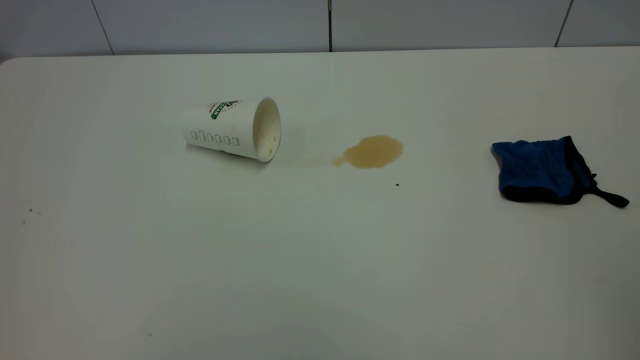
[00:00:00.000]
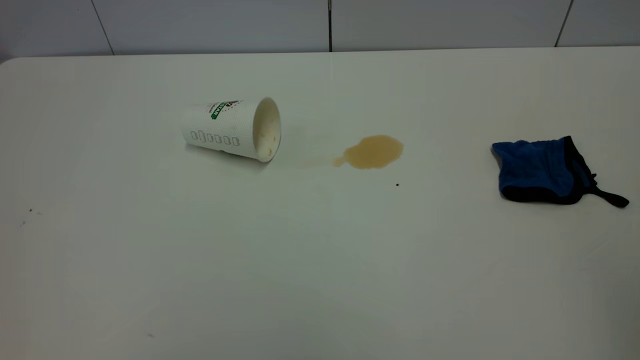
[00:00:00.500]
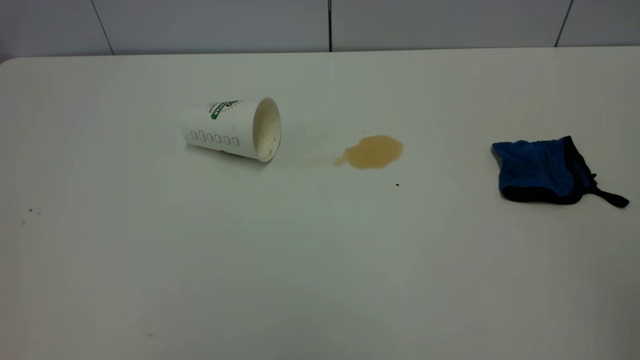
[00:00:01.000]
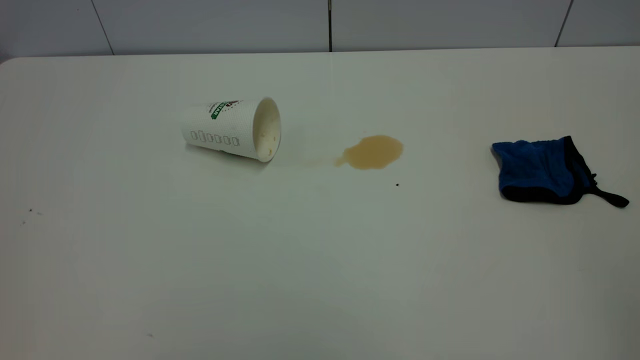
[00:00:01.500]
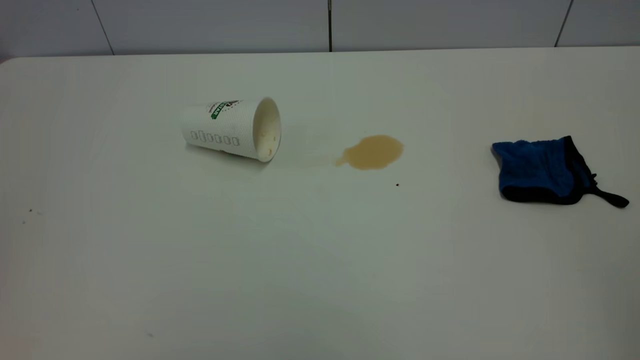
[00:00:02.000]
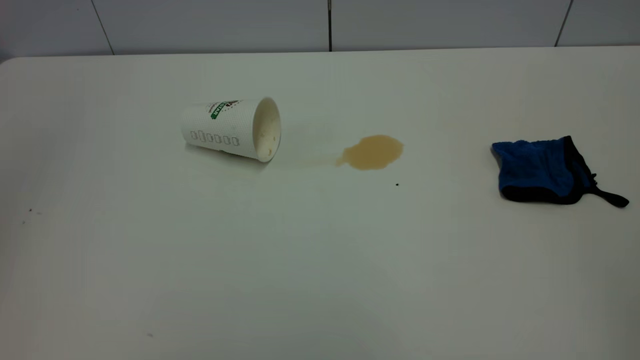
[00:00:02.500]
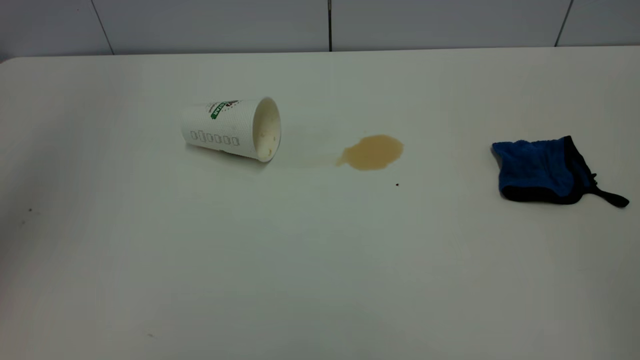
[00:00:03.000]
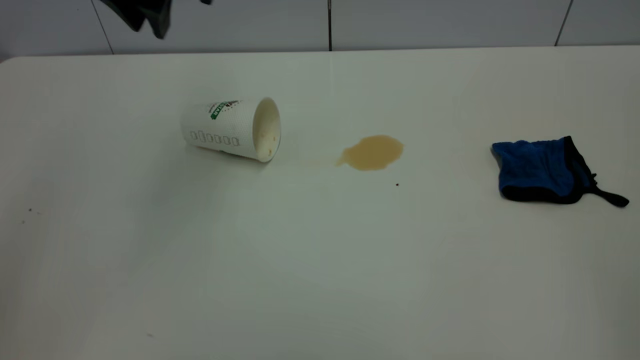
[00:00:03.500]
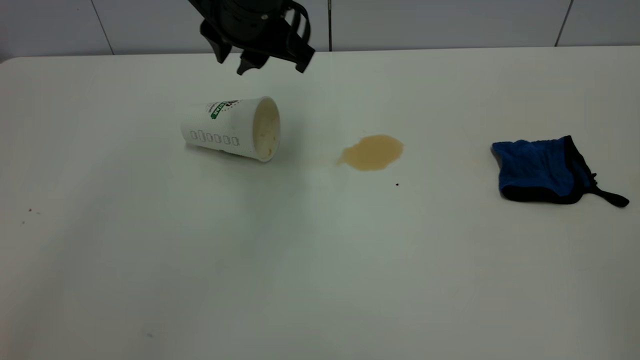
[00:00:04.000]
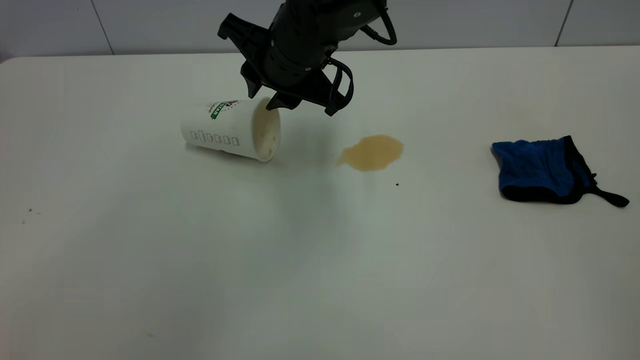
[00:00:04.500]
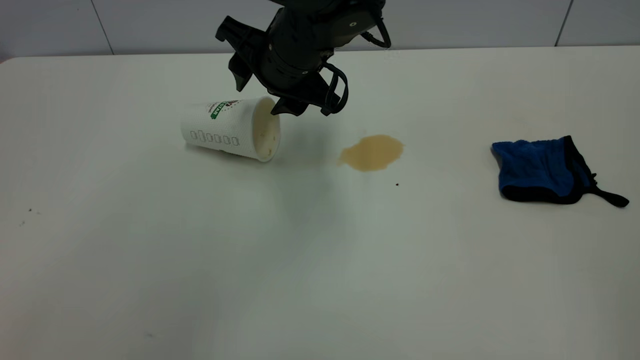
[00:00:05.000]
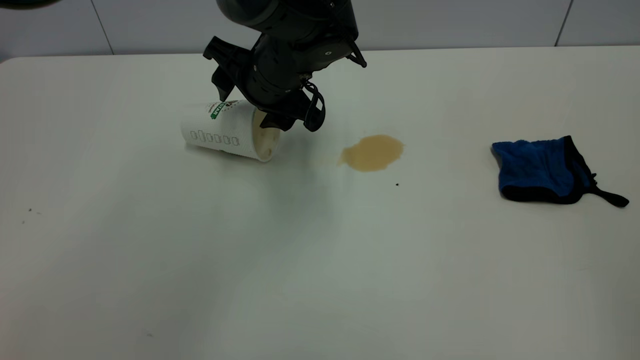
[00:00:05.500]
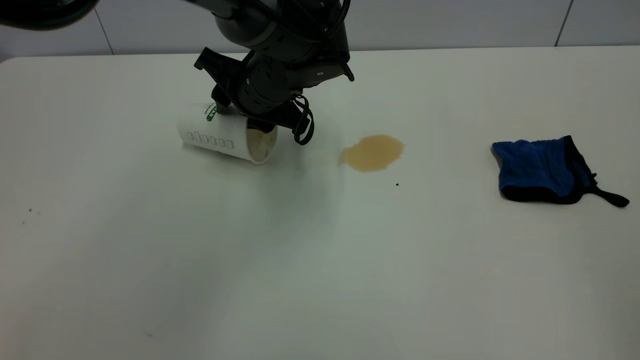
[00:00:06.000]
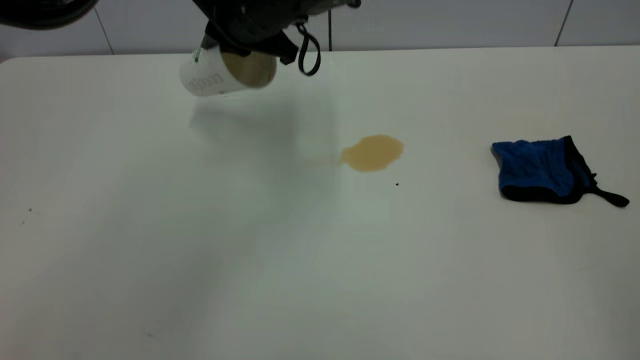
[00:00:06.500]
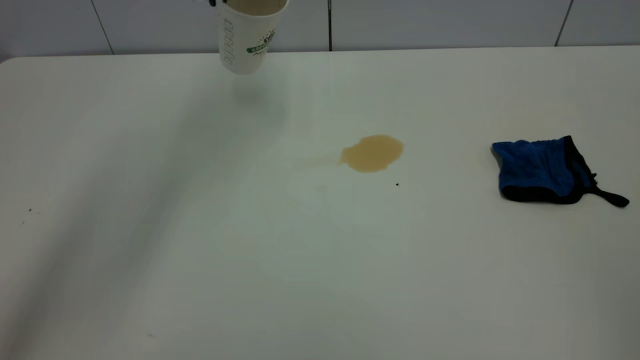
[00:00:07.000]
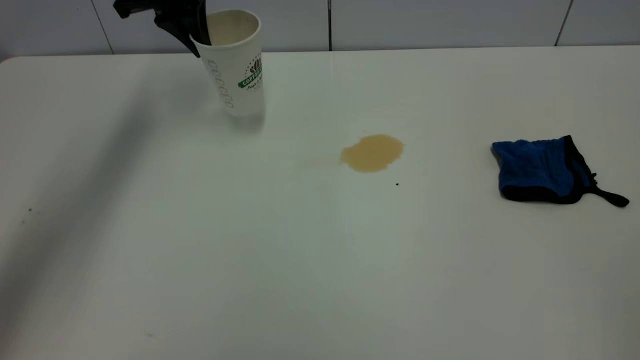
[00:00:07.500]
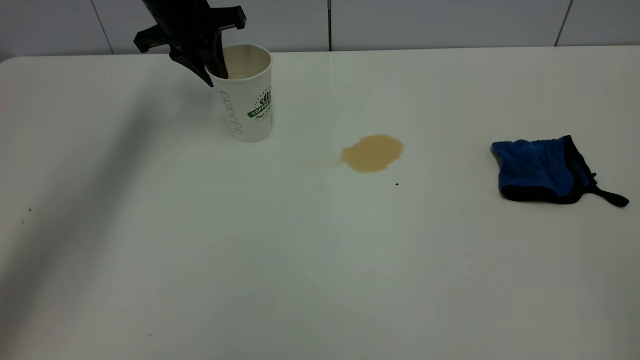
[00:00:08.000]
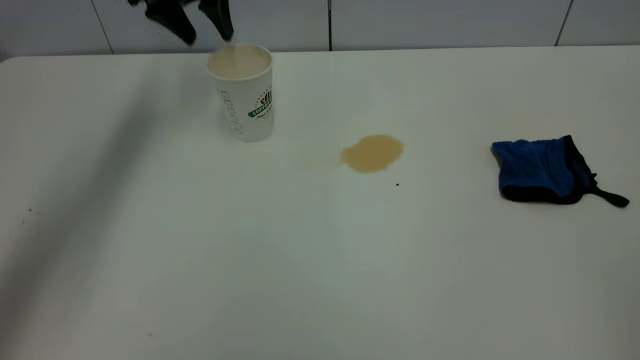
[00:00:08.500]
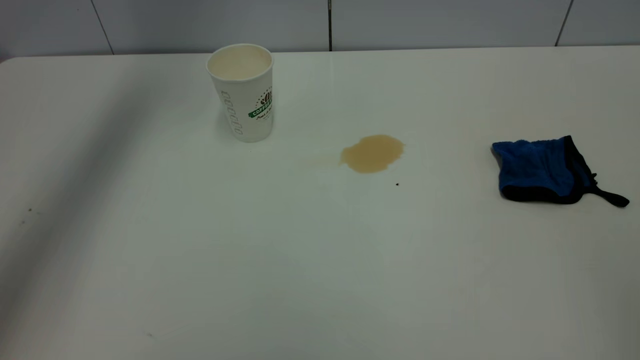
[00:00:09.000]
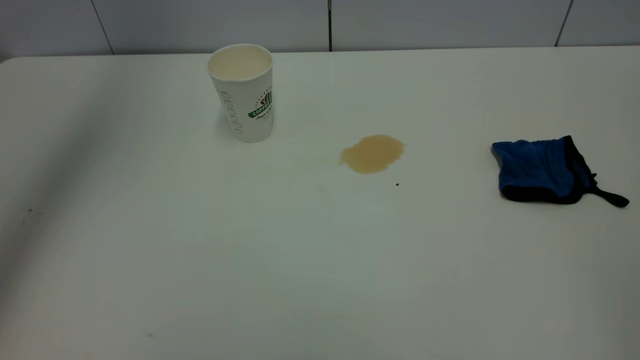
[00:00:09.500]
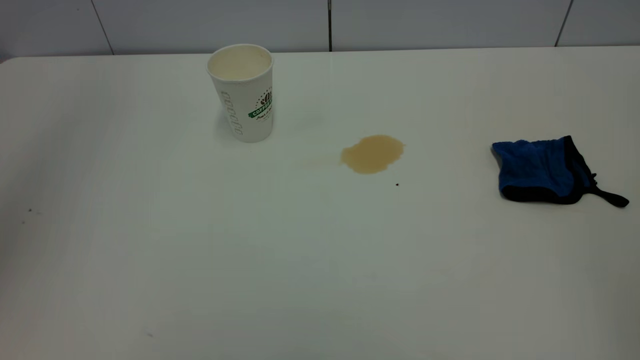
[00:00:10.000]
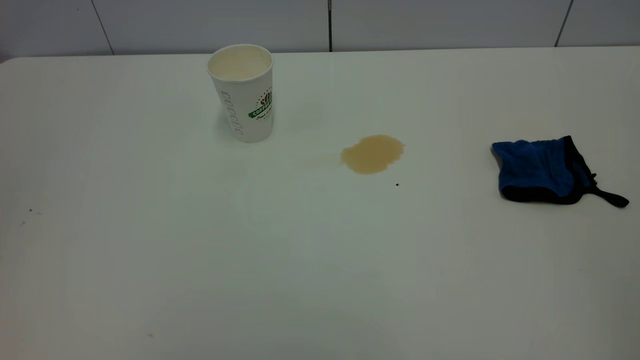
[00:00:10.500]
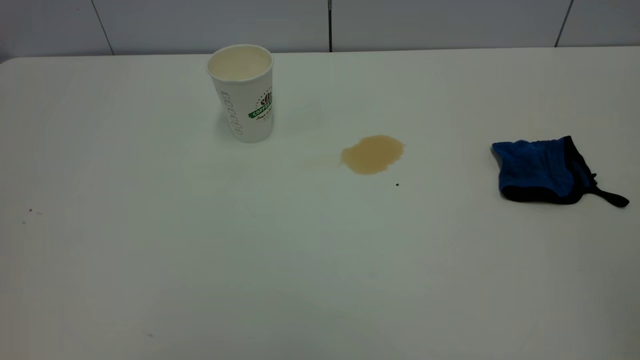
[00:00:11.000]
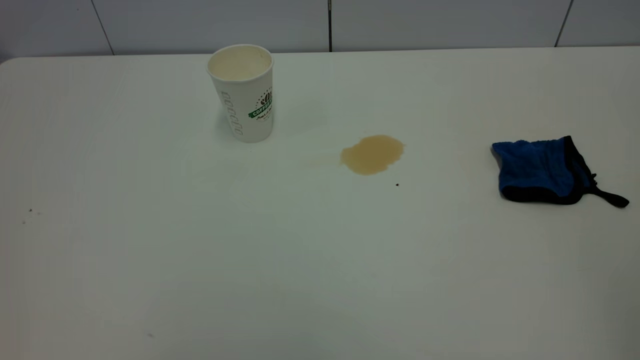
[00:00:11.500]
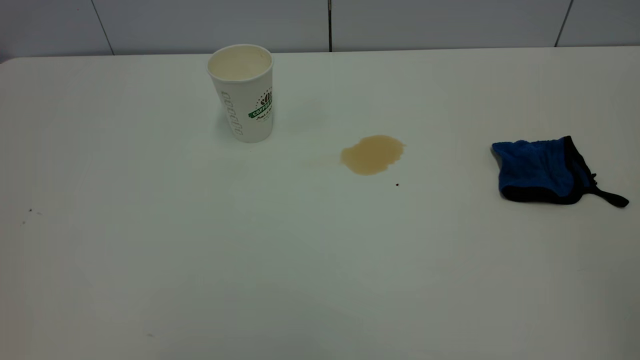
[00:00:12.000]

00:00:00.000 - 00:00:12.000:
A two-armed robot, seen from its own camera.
Task of the whole recording: the left gripper pick up the fallen cup and place it upright, the right gripper grasp the blue rag and wipe the tea stain on the table, the right gripper put the blue rag back in its original position.
Step, 00:00:00.000 - 00:00:08.000: Stand the paper cup upright.
00:00:02.000 - 00:00:04.000: The left gripper is displaced forward, to the right and downward by approximately 50 cm.
00:00:04.000 - 00:00:06.000: The left gripper goes about 10 cm downward, and opens, then closes again.
00:00:06.000 - 00:00:08.000: The left gripper heads to the left, forward and upward, covering about 20 cm.
00:00:08.000 - 00:00:10.000: The left gripper heads backward and upward, covering roughly 35 cm, and opens.

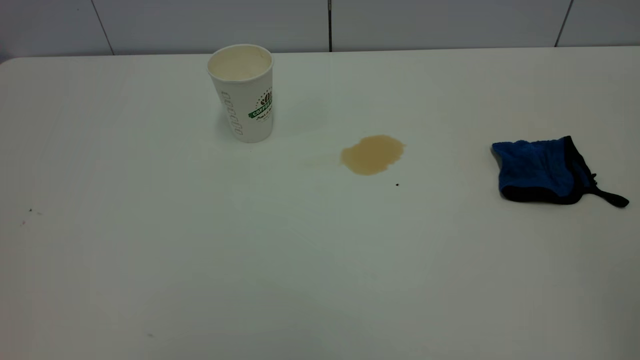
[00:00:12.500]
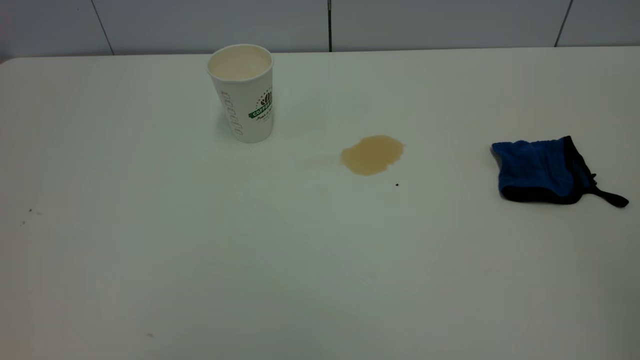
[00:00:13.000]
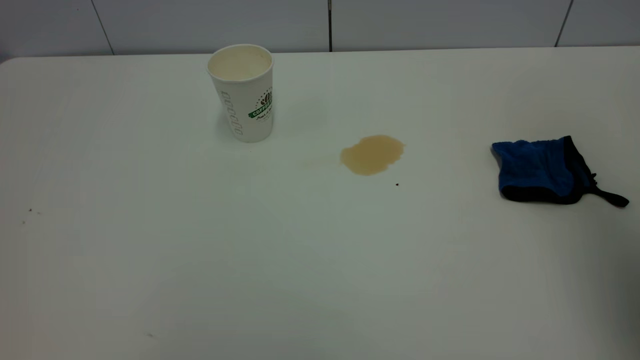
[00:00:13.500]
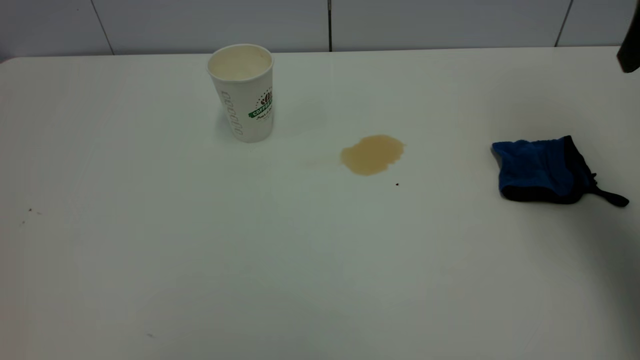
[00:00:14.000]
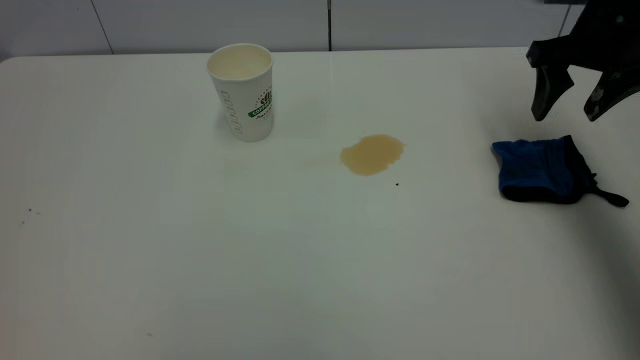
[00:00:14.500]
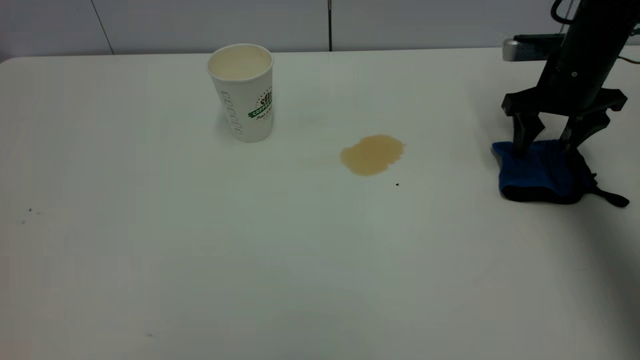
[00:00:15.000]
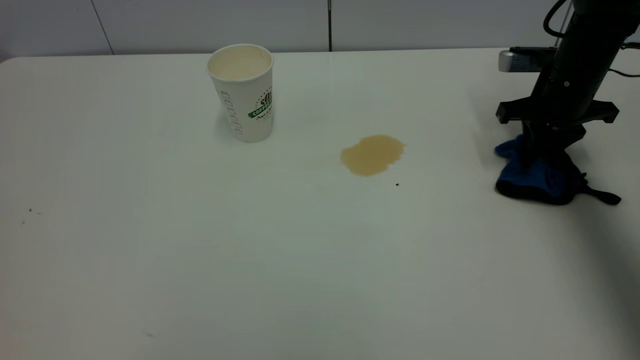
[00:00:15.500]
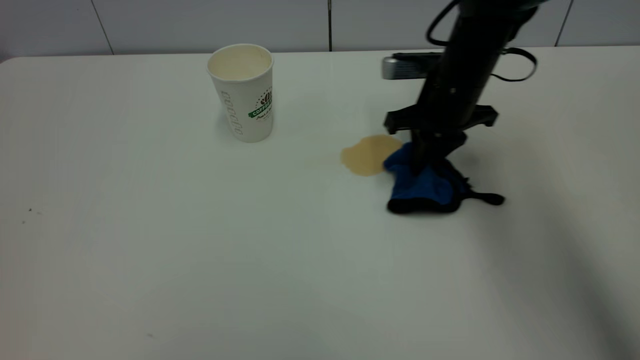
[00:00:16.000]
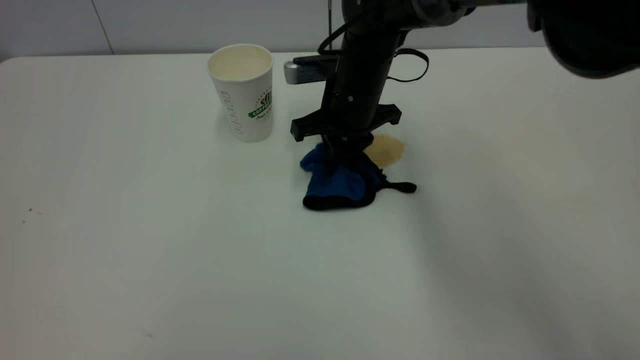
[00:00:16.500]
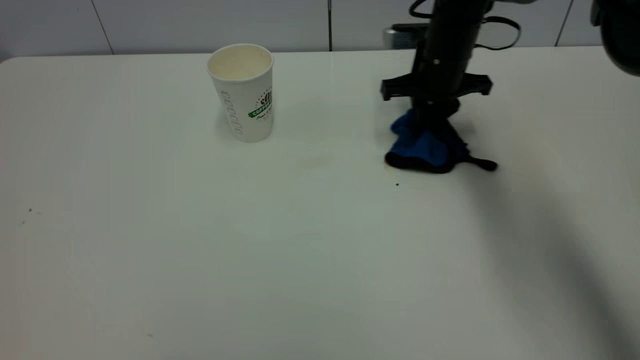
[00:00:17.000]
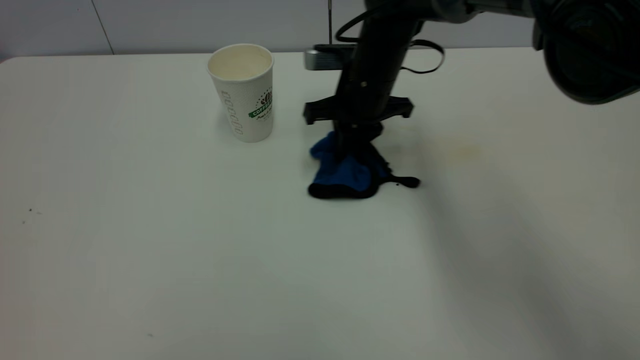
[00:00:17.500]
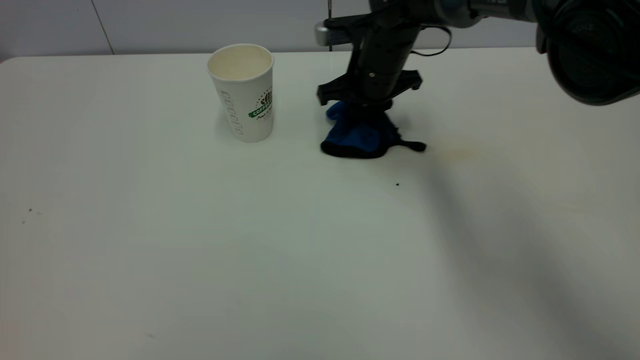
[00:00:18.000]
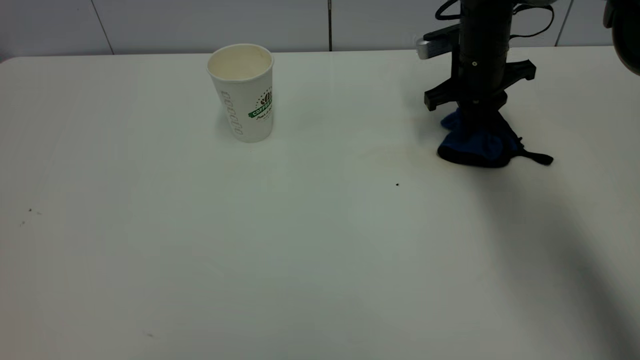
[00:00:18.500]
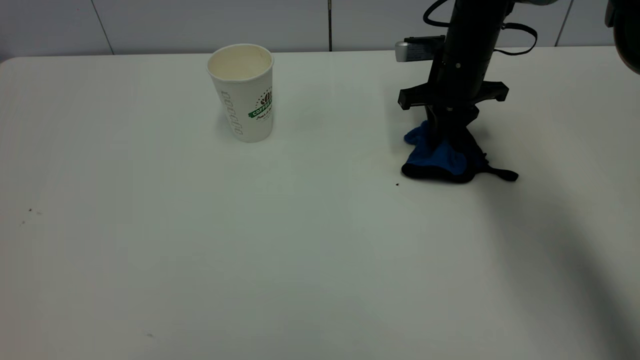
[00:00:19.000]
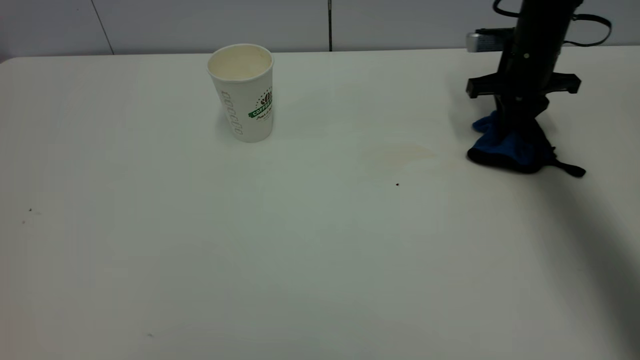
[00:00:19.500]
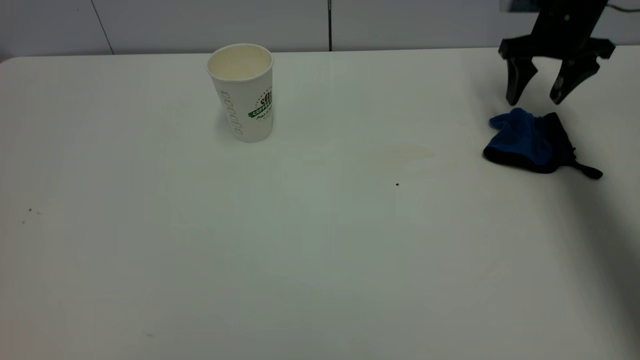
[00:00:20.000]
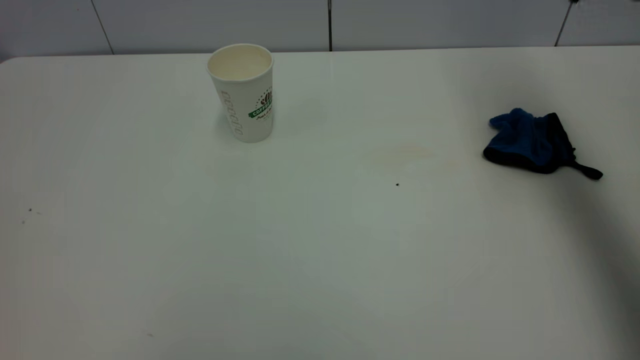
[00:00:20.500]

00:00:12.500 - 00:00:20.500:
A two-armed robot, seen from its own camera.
Task of the whole recording: the left gripper pick up the fallen cup and place it upright, the right gripper grasp the blue rag and wipe the tea stain on the table, the right gripper put the blue rag back in its original position.
Step, 00:00:12.500 - 00:00:20.000: Wipe the stains off the table with a rag.
00:00:12.500 - 00:00:14.500: The right gripper shifts roughly 40 cm forward, and opens its fingers.
00:00:14.500 - 00:00:16.500: The right gripper goes roughly 25 cm to the left, and closes its fingers.
00:00:16.500 - 00:00:18.500: The right gripper moves left and right over about 15 cm, changing direction 2 times.
00:00:18.500 - 00:00:20.500: The right gripper travels upward and backward by about 30 cm, and opens up.
